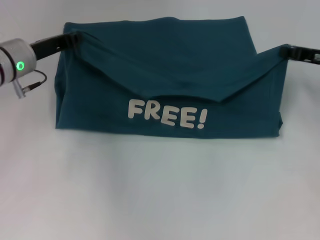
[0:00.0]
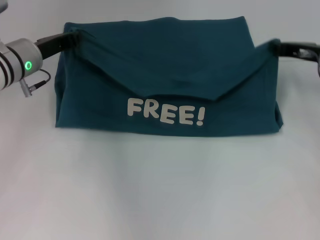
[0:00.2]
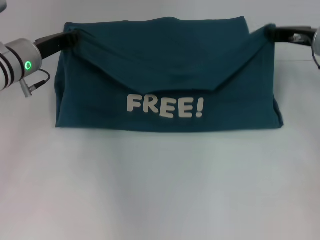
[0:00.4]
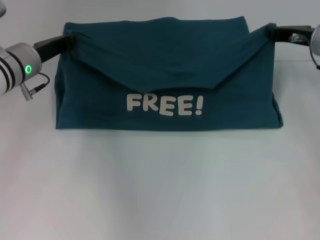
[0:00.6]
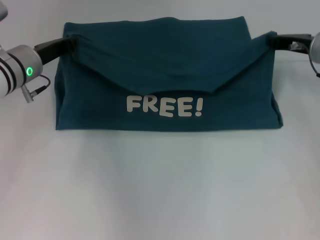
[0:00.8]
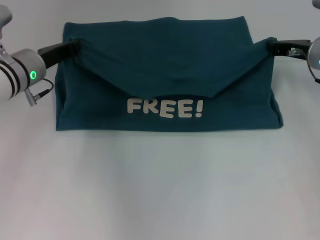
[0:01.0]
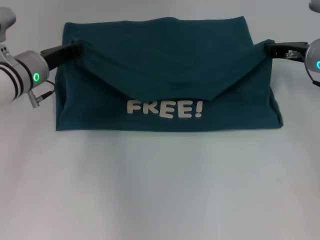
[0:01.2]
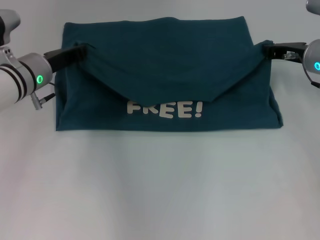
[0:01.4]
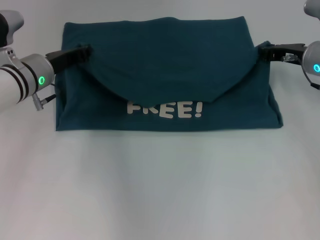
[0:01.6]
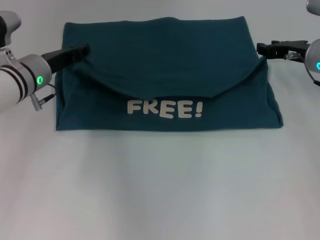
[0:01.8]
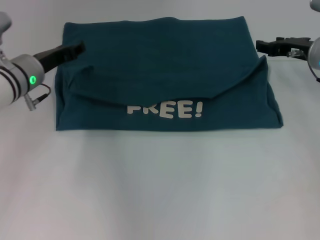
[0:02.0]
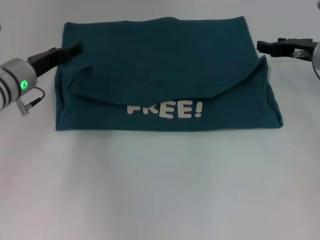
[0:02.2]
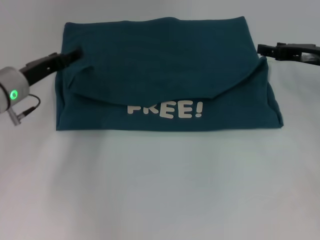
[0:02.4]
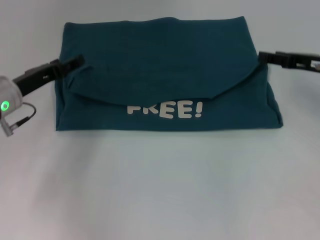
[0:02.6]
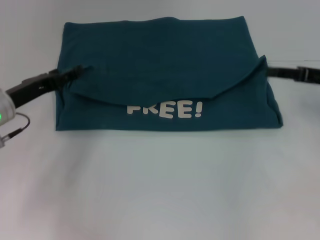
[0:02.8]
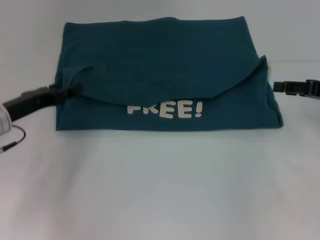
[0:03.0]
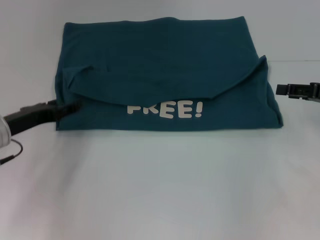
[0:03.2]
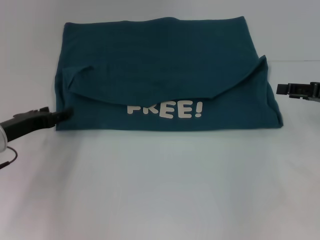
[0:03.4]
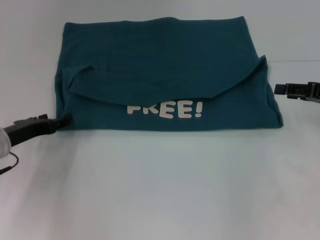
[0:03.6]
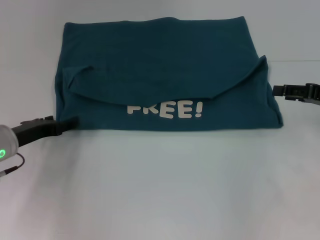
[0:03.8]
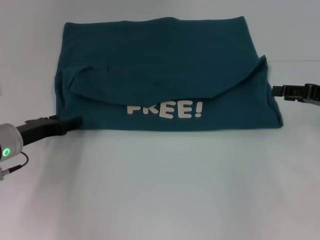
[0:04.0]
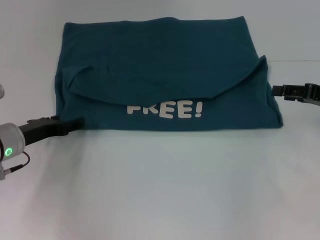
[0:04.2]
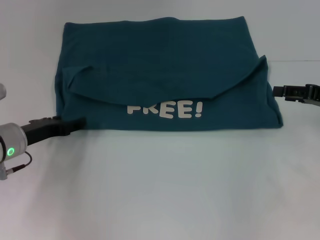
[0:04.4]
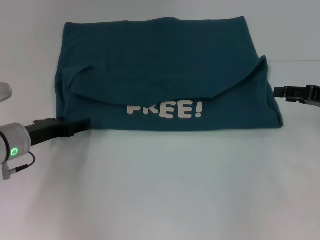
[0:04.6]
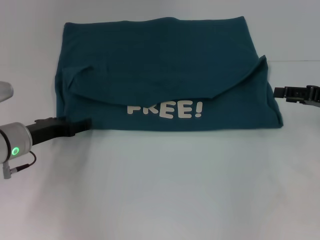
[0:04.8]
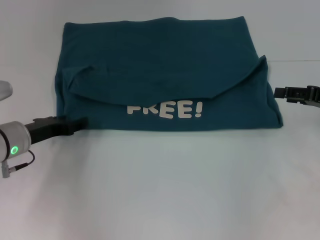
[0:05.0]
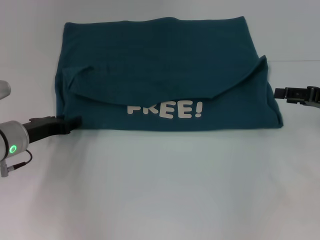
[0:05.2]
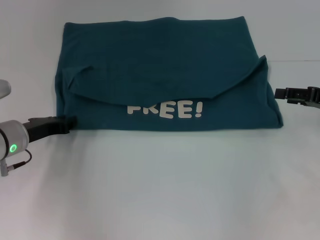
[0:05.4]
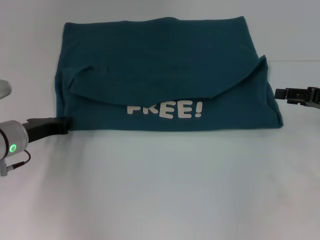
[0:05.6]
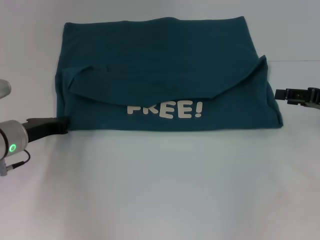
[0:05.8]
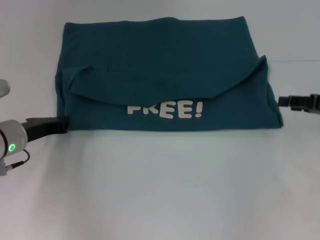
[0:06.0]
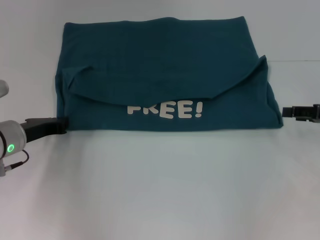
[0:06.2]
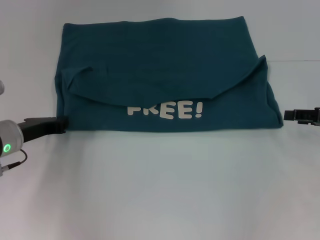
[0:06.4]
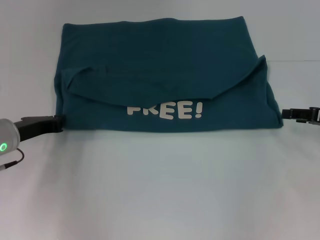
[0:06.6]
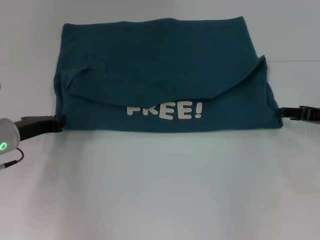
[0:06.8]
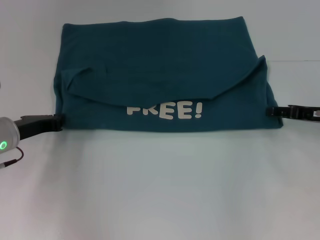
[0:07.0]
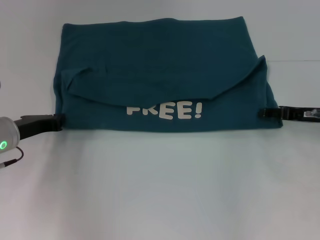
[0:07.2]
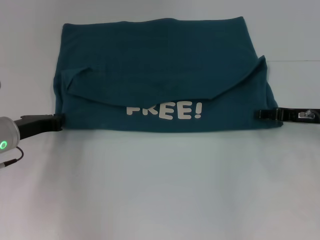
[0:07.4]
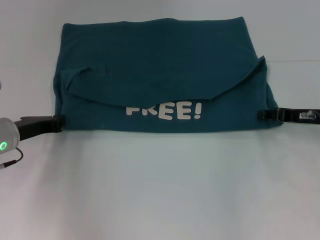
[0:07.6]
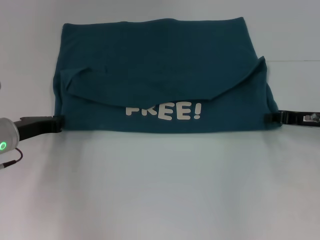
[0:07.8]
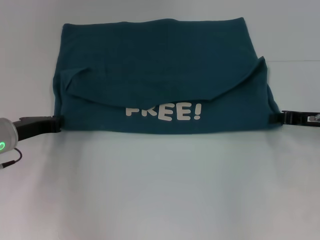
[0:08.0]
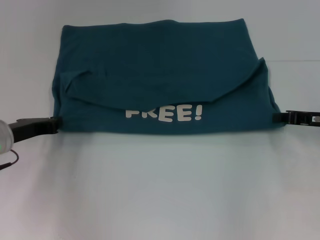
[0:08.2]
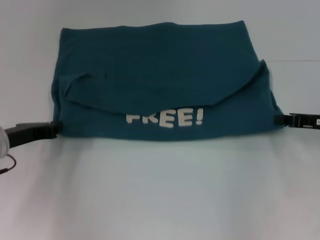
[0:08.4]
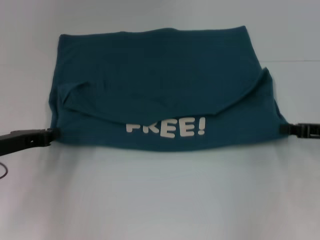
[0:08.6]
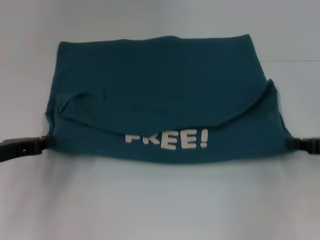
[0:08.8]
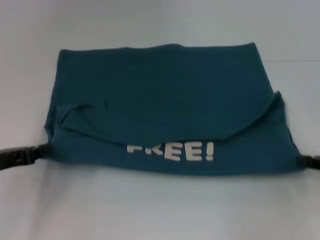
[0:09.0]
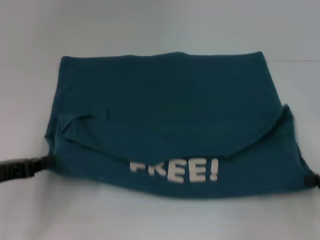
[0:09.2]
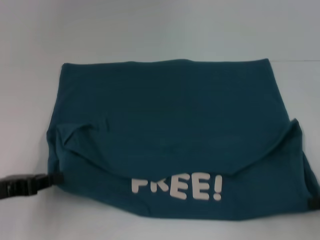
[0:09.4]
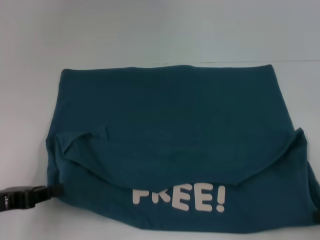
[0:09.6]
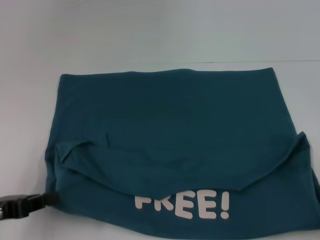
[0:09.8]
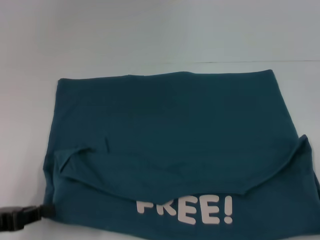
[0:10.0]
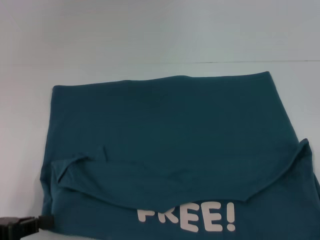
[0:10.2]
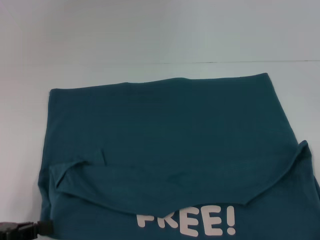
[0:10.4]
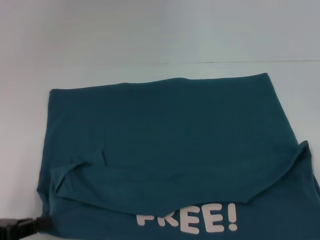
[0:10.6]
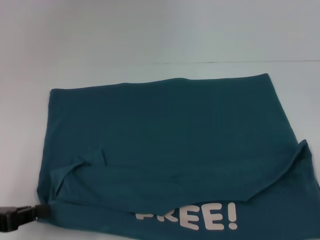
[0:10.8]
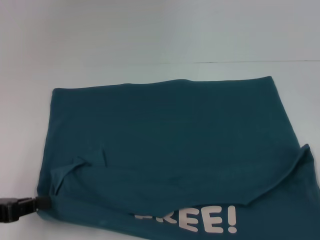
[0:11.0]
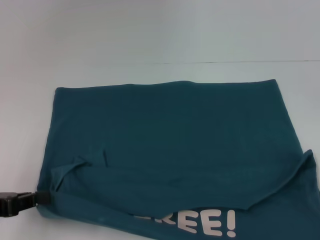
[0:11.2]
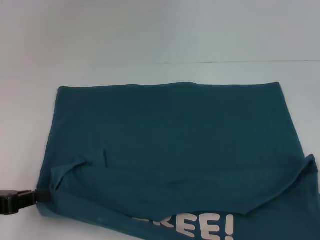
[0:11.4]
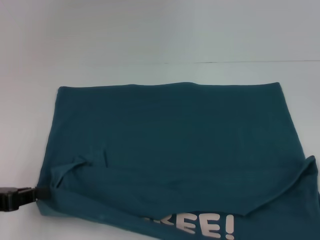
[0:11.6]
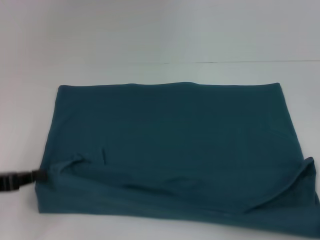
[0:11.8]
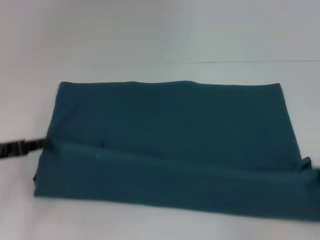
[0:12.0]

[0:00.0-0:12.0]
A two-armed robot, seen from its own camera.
Step, 0:02.0 to 0:10.2: Pull the clothes with your left hand.
Step, 0:02.0 to 0:10.2: Pull the clothes with your right hand.
0:00.0 to 0:01.6: The right gripper shifts by some 5 cm.
0:01.6 to 0:03.0: The left gripper travels backward and to the left by roughly 10 cm, and opens up, while the right gripper moves backward and to the right, approximately 10 cm, and opens.
0:03.0 to 0:04.4: There are only small adjustments of the grippers.
0:04.4 to 0:06.0: The left gripper closes up.
0:06.0 to 0:07.6: The right gripper moves to the left, approximately 5 cm.
0:07.6 to 0:09.0: The right gripper travels backward and to the right by roughly 10 cm, and closes up, while the left gripper heads backward, covering approximately 10 cm.
0:09.0 to 0:10.4: Both grippers travel together backward, about 10 cm.
0:10.4 to 0:12.0: The right gripper changes place by roughly 5 cm, while the left gripper moves forward, approximately 10 cm.

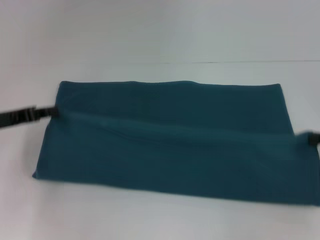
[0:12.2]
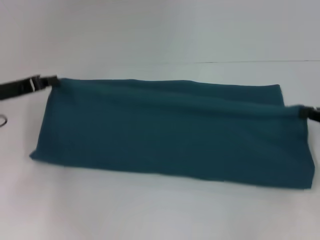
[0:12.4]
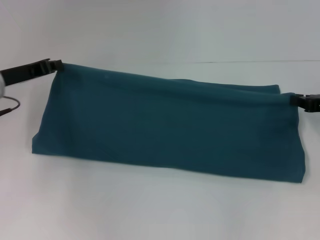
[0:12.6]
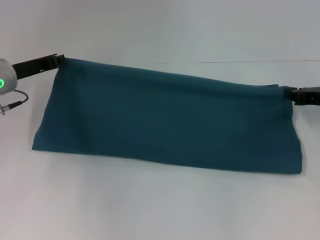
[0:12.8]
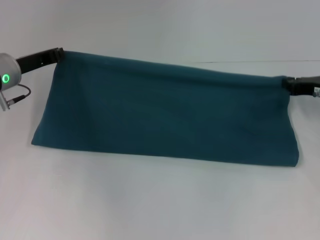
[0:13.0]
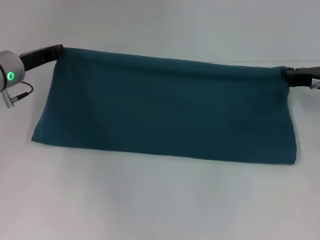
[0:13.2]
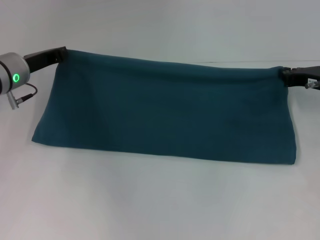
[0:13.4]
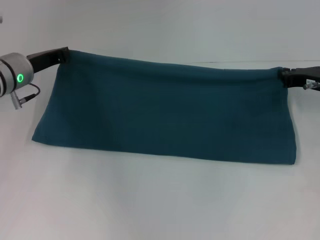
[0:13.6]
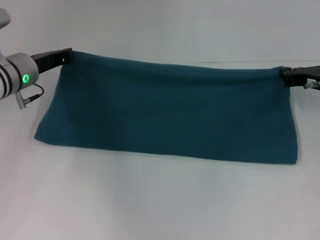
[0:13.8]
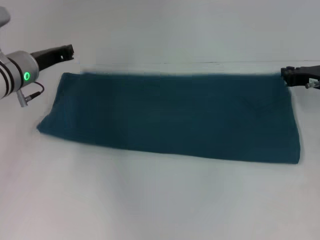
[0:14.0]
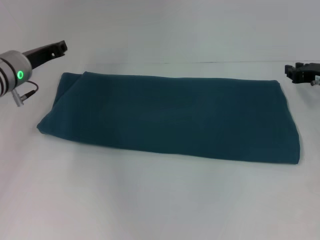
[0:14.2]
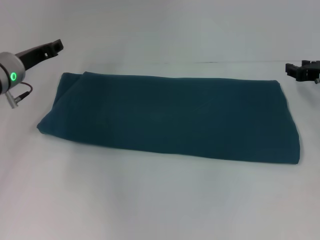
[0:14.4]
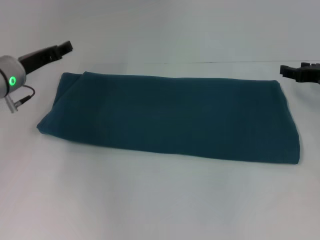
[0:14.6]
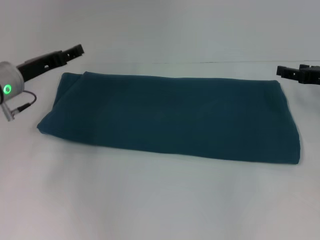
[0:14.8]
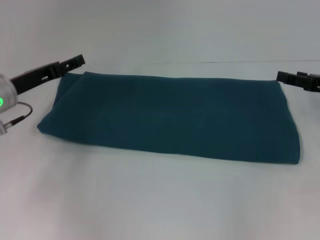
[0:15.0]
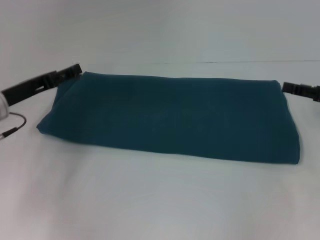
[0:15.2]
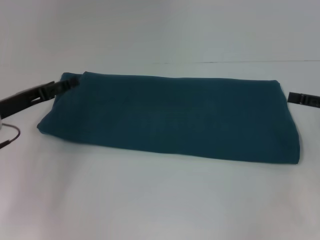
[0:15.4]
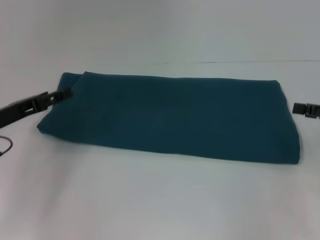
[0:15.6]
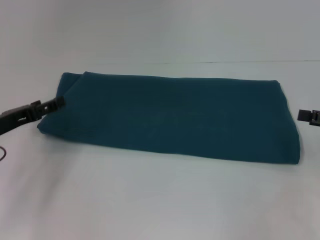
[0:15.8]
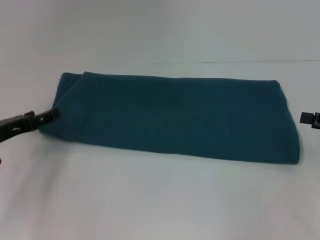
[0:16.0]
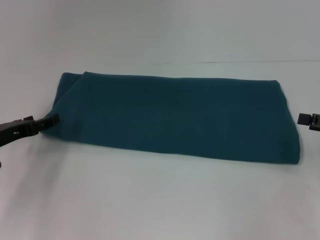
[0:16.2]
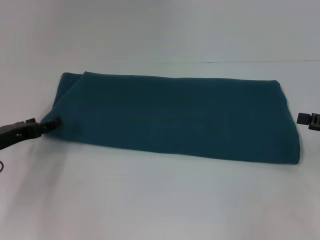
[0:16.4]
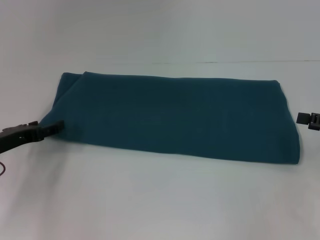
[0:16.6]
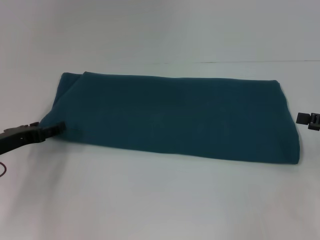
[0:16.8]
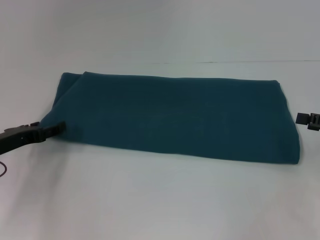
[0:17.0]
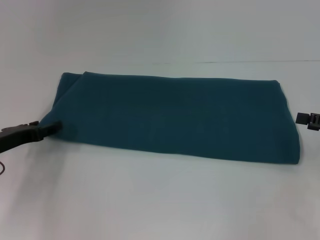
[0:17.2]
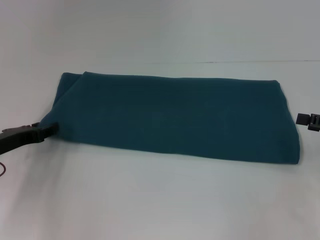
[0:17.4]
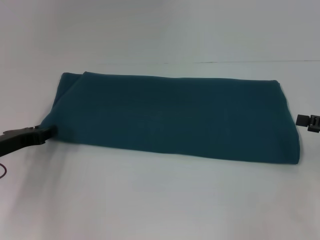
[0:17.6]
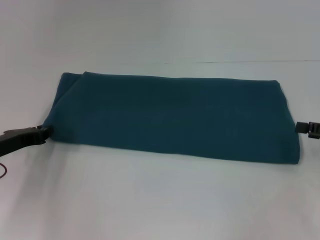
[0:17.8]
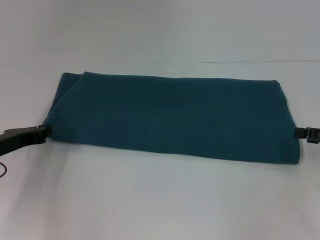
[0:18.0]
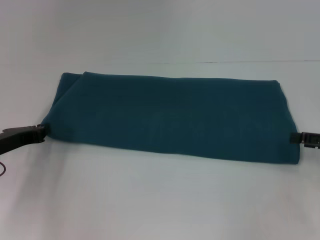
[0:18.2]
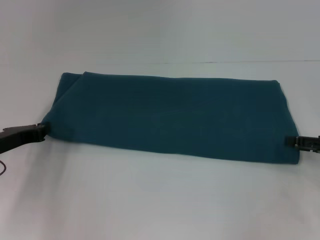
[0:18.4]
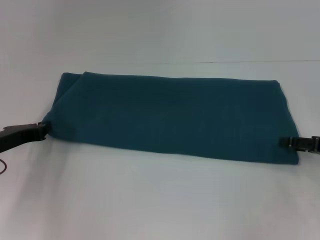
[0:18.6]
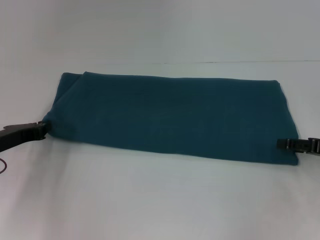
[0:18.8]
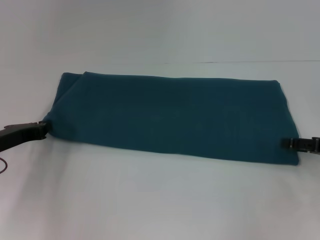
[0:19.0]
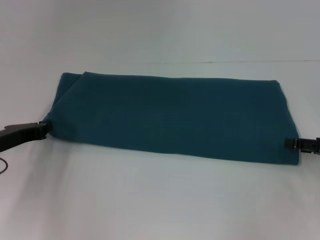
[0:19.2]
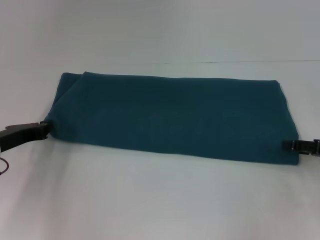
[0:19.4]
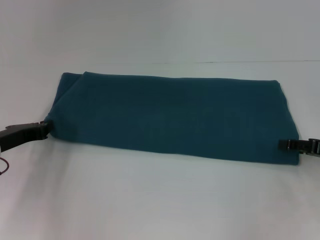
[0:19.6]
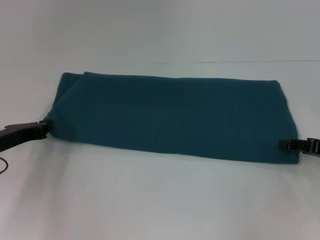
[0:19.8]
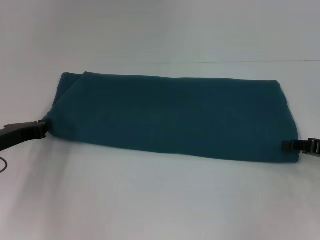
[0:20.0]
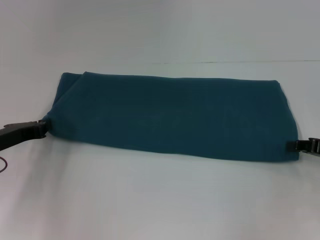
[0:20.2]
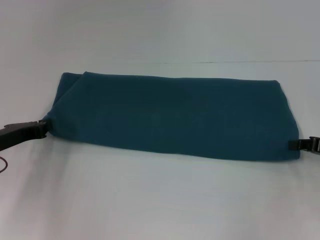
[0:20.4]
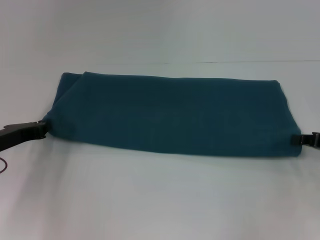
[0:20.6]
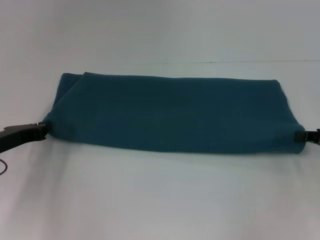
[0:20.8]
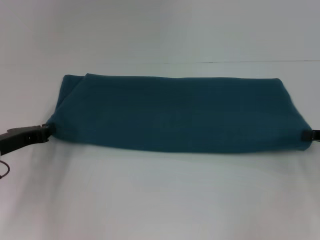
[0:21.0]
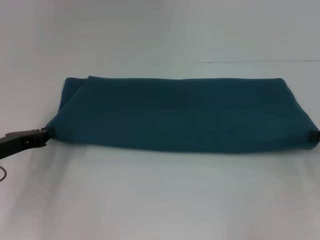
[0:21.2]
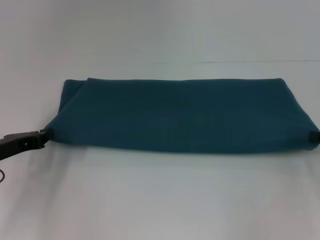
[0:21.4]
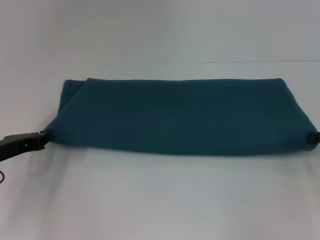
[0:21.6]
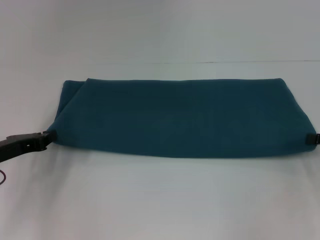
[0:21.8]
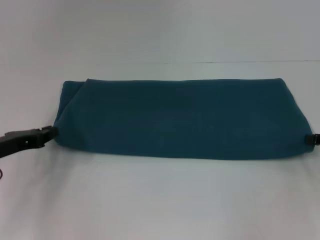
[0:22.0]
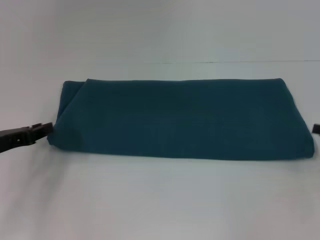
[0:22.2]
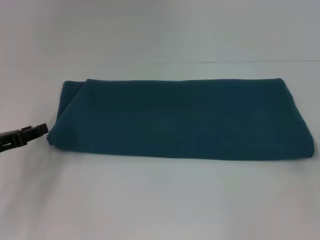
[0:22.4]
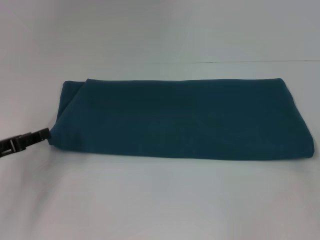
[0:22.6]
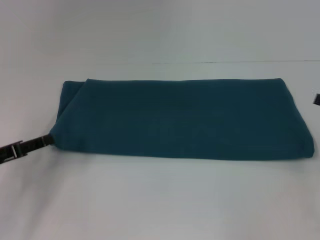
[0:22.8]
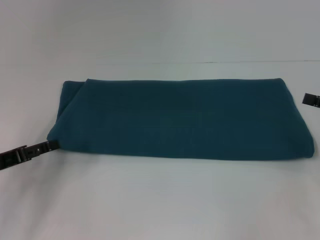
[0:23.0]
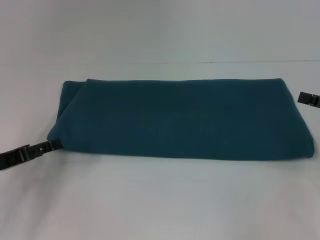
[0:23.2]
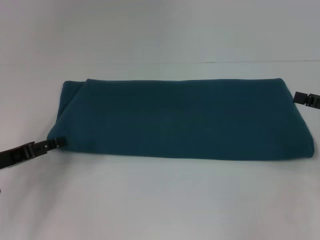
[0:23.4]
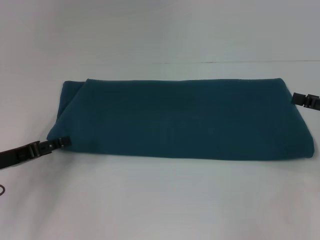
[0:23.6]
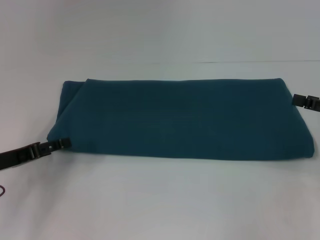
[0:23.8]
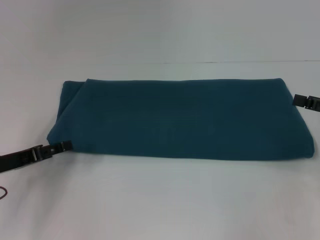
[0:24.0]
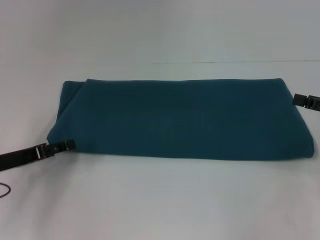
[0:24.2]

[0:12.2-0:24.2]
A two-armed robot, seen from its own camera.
Step, 0:12.2 to 0:15.2: Fold the clothes to the right.
0:12.2 to 0:13.8: The right gripper is displaced forward and to the left by approximately 15 cm; the left gripper heads forward and to the right, covering about 15 cm.
0:13.8 to 0:15.2: The right gripper is displaced backward and to the right by about 10 cm, and opens its fingers. The left gripper travels backward by some 5 cm, and opens up.
0:15.2 to 0:16.6: The left gripper ends up some 5 cm from where it was.
0:18.2 to 0:19.8: The grippers stay close to where they were, moving slightly.
0:19.8 to 0:21.2: The right gripper closes.
0:21.2 to 0:22.6: The left gripper opens up. Meanwhile the right gripper opens.
0:22.6 to 0:24.2: The left gripper opens up.
